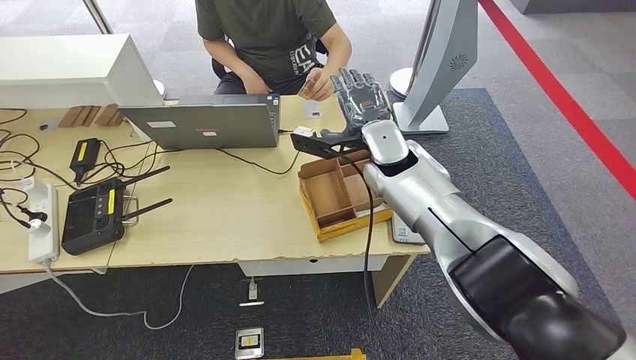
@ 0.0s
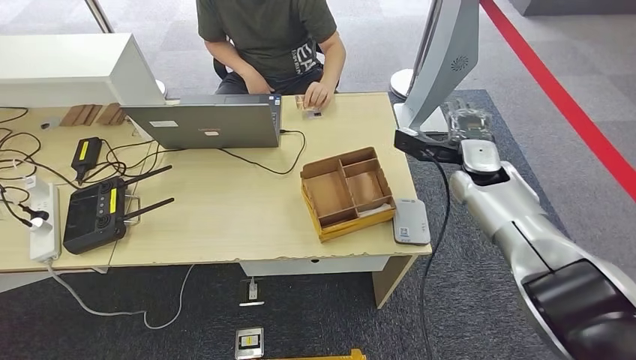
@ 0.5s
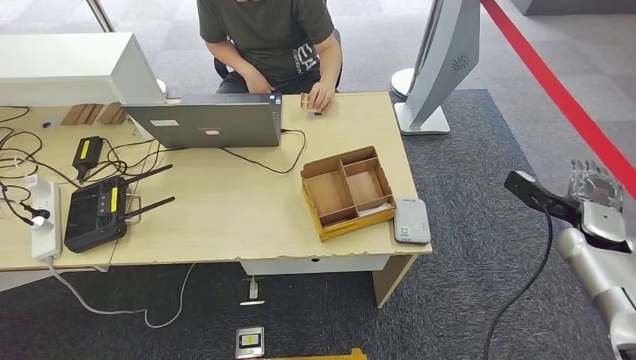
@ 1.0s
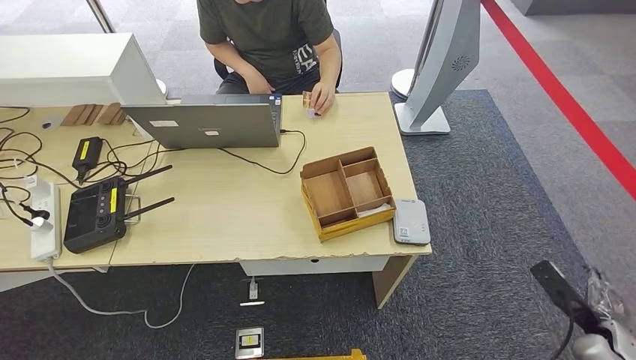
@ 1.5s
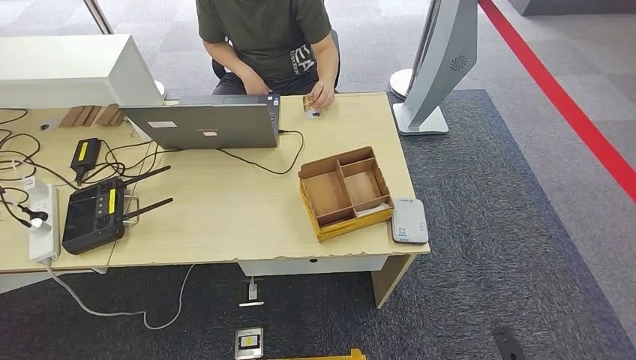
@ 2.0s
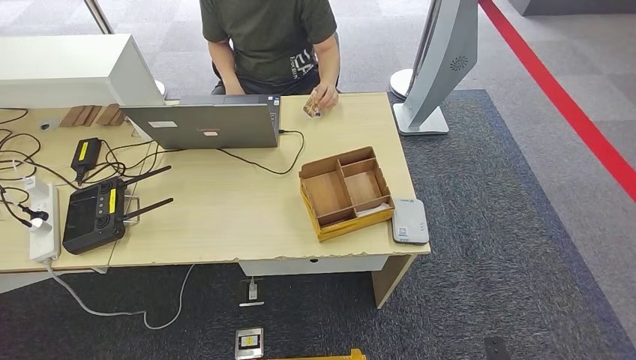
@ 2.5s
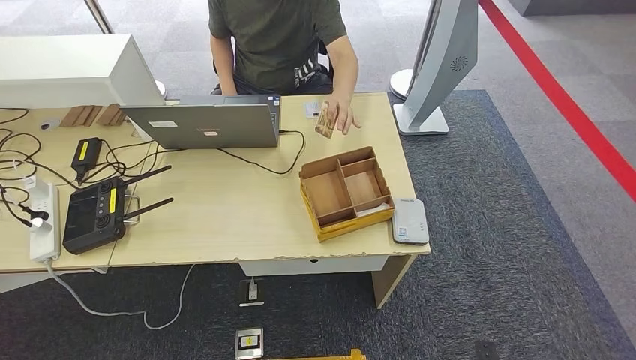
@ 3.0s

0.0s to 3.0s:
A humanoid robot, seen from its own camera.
Step, 0.0s to 3.0s: Hand the room key to the person.
0.0s to 1.5s: The right hand moves to the right, backward and downward, roughly 60 cm.
1.5s to 3.0s: The right hand goes approximately 25 cm to the left, downward and backward. Meanwhile the left hand moves to the left, some 10 cm.
